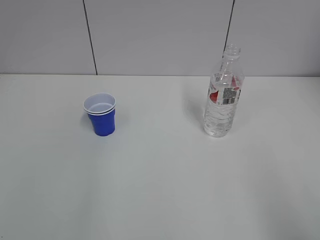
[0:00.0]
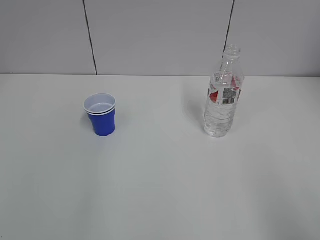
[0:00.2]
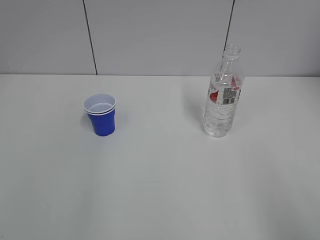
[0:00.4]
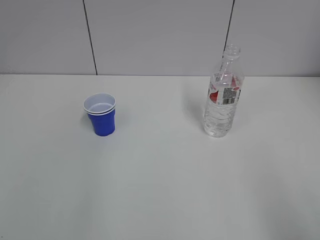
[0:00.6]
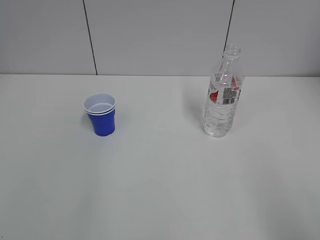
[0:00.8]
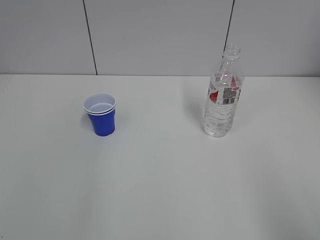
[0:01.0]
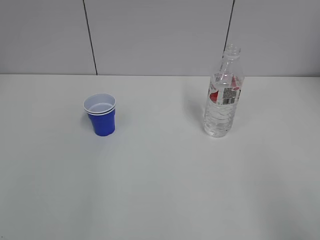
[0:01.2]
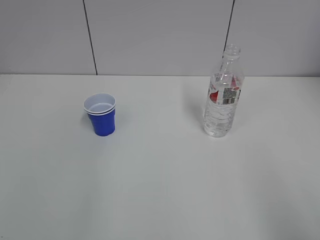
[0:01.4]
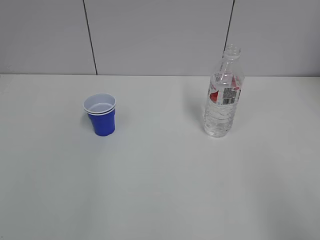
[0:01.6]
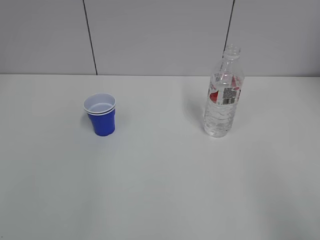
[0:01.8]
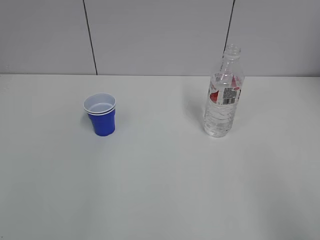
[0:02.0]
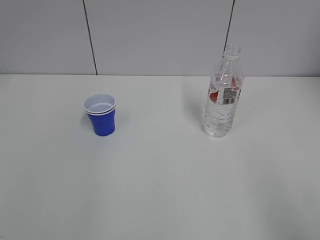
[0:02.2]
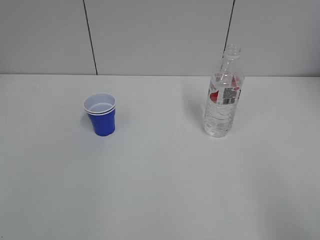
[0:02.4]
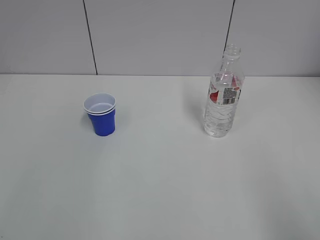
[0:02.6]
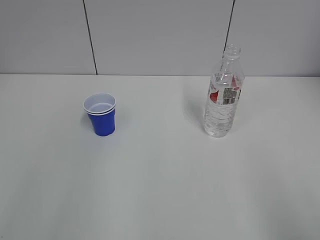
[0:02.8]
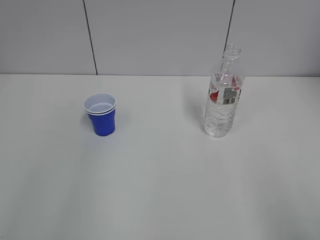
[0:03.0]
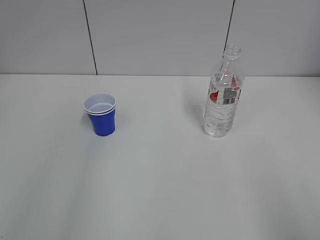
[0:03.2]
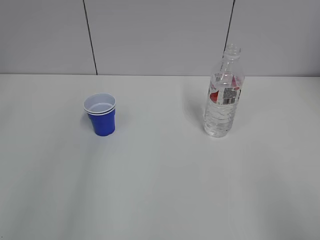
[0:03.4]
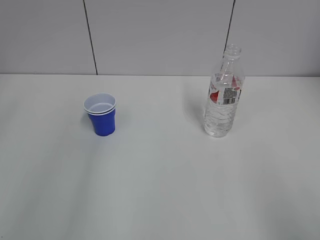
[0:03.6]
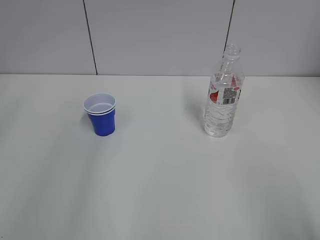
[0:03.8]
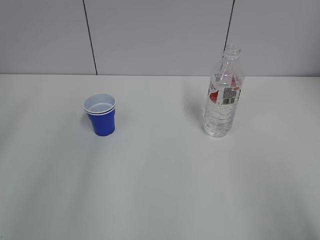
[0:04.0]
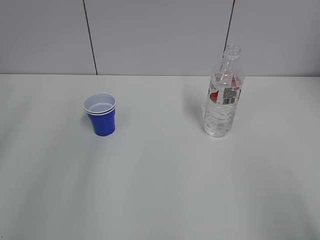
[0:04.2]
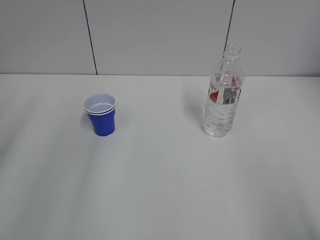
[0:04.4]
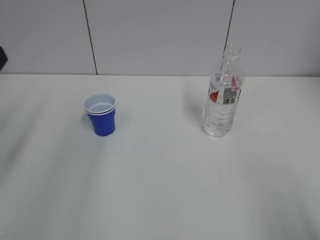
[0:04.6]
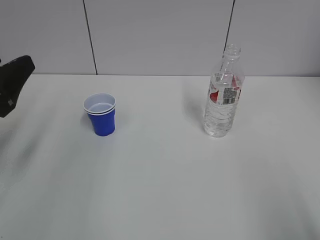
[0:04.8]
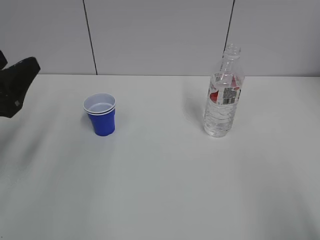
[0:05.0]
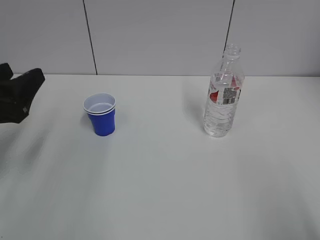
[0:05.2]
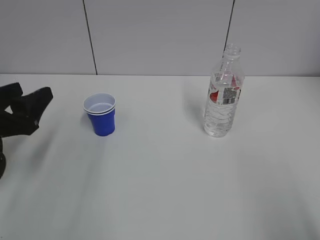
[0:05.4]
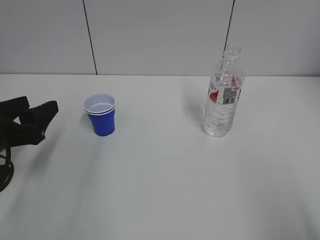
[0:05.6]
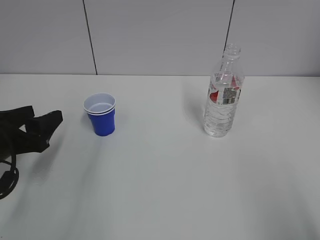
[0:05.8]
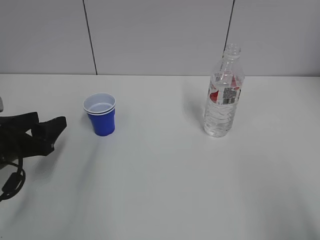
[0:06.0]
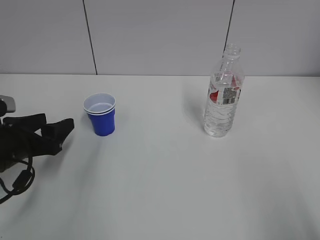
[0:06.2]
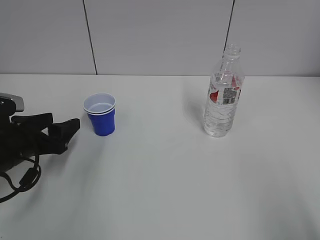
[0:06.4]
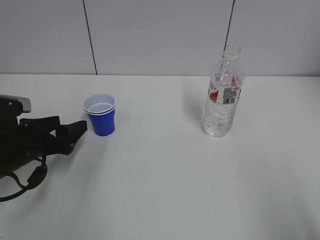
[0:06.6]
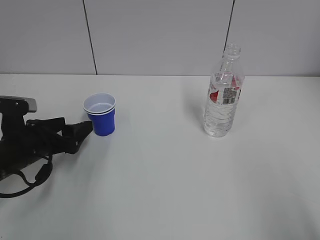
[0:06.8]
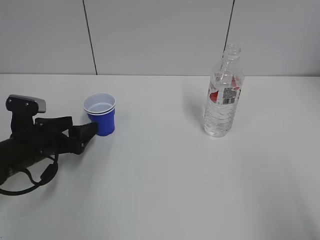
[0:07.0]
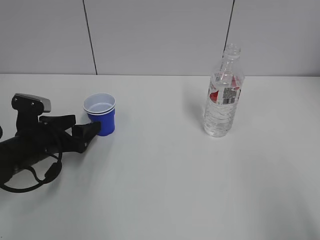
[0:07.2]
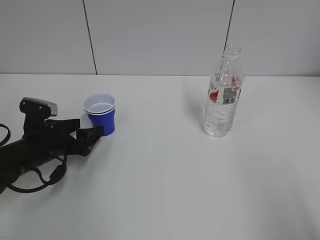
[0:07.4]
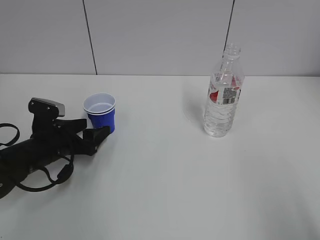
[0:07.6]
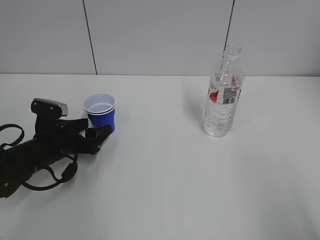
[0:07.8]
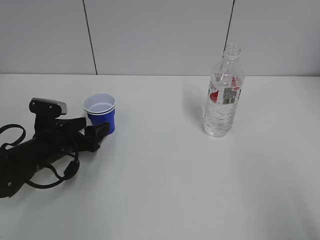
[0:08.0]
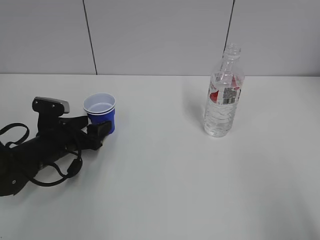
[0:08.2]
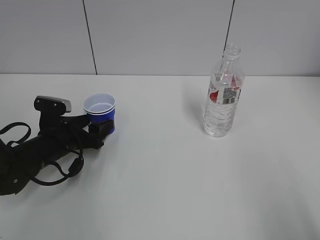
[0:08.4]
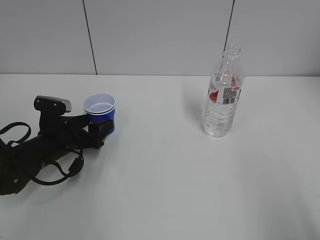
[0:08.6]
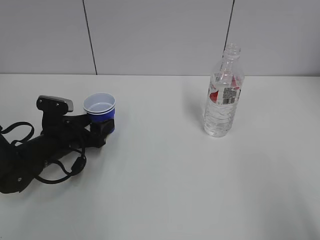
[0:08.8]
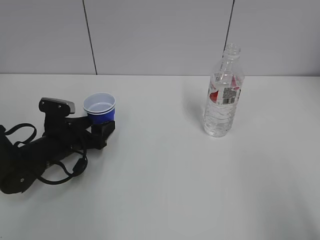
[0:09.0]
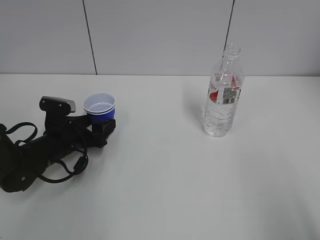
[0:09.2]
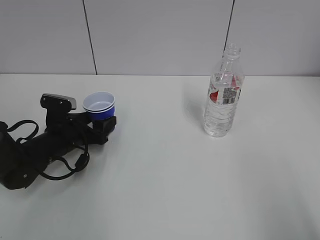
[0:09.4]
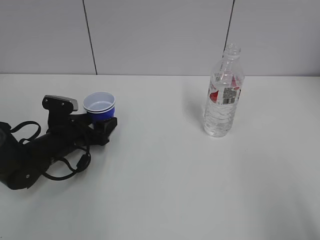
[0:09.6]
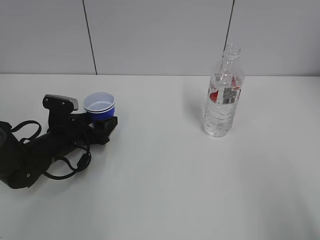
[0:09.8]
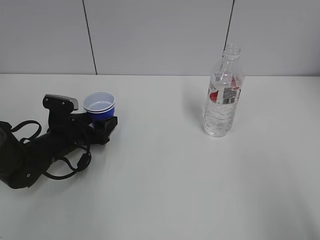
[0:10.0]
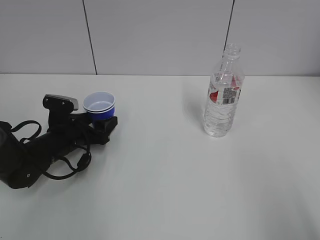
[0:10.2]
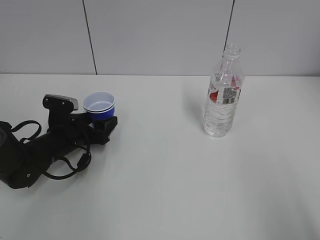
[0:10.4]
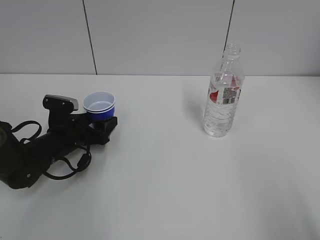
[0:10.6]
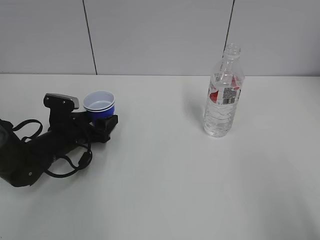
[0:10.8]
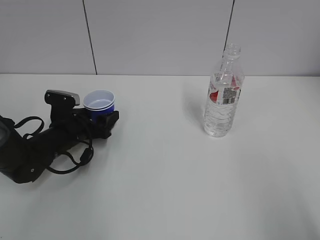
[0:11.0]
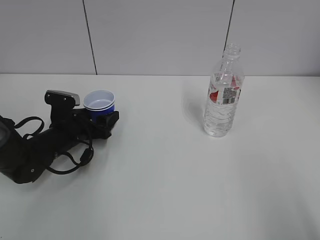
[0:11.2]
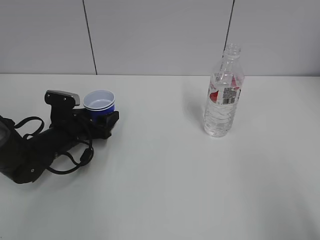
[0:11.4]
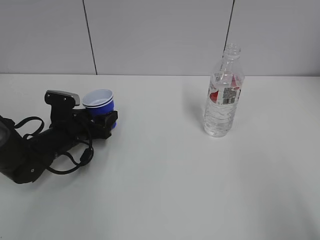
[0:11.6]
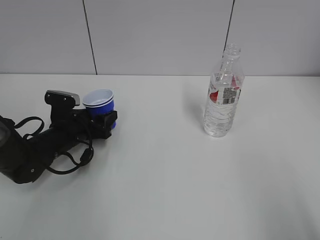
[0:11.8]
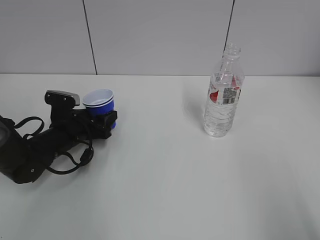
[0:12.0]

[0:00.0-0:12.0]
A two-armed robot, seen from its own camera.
Step, 0:00.0 to 0:11.4: Grab the paper cup with the left hand.
0:04.4 to 0:06.0: The left gripper travels downward and forward by some 15 cm.
0:06.0 to 0:07.6: The left gripper goes approximately 10 cm forward and downward.
0:07.6 to 0:09.0: The grippers make only small movements.
0:09.0 to 0:10.4: Both grippers stay about where they are.
0:10.4 to 0:12.0: Both grippers stay about where they are.

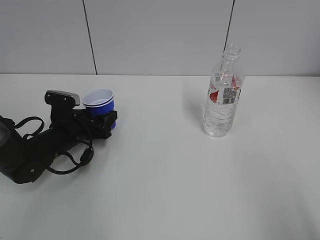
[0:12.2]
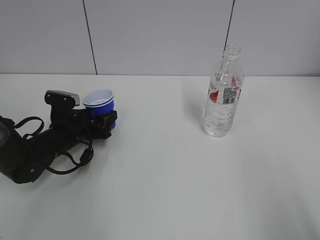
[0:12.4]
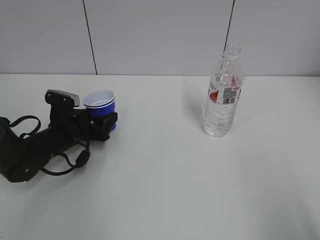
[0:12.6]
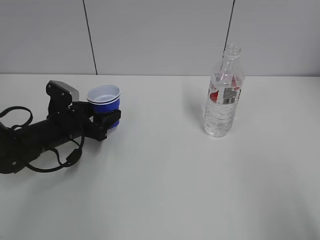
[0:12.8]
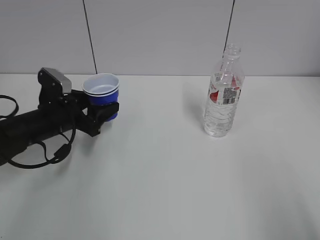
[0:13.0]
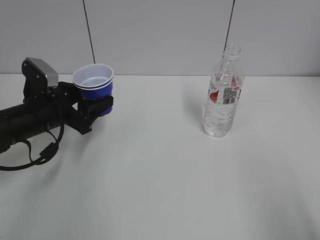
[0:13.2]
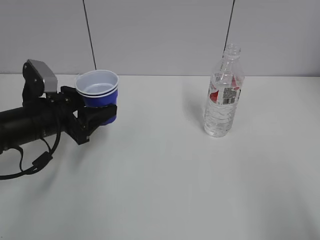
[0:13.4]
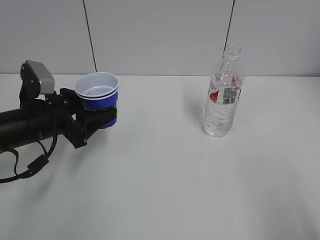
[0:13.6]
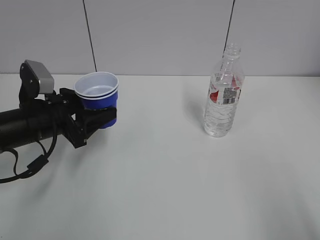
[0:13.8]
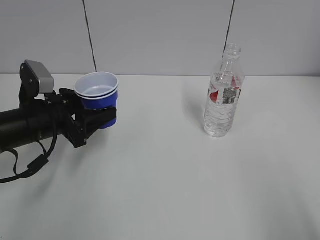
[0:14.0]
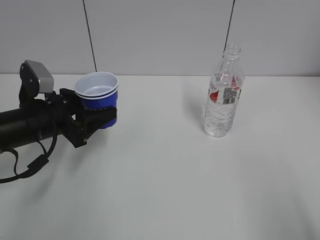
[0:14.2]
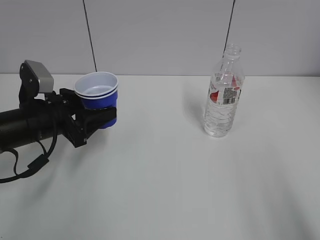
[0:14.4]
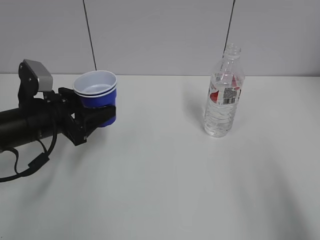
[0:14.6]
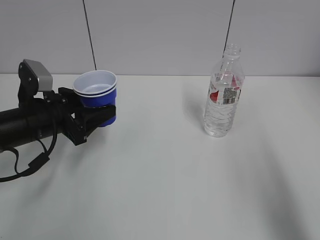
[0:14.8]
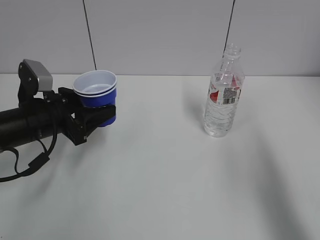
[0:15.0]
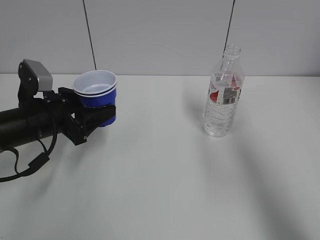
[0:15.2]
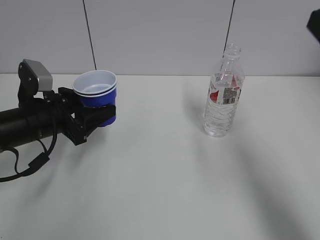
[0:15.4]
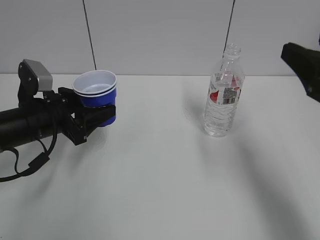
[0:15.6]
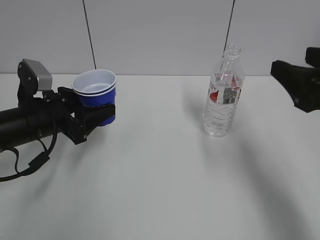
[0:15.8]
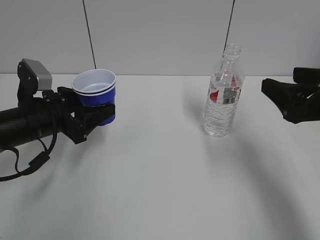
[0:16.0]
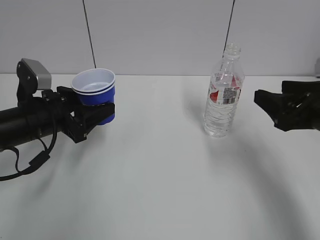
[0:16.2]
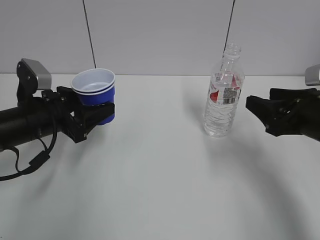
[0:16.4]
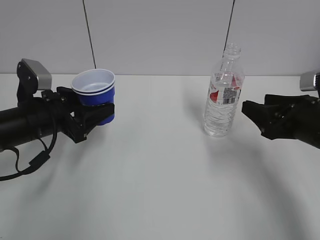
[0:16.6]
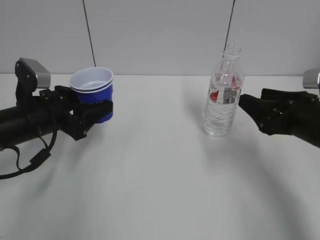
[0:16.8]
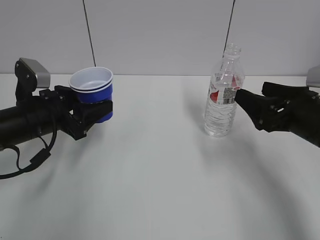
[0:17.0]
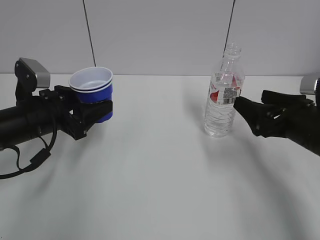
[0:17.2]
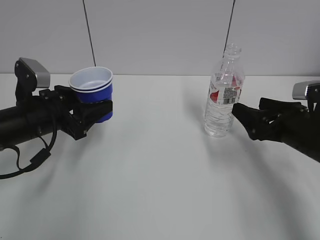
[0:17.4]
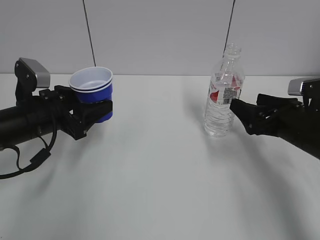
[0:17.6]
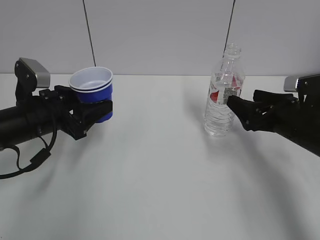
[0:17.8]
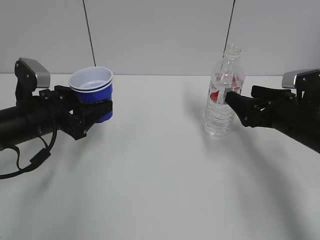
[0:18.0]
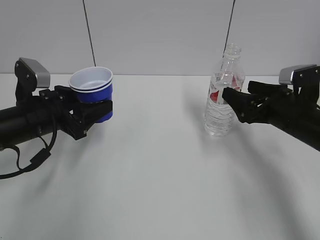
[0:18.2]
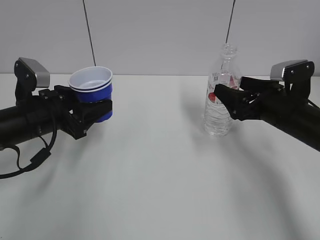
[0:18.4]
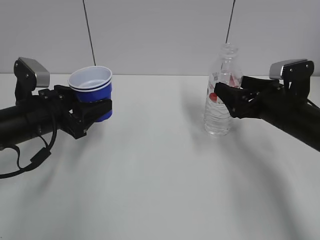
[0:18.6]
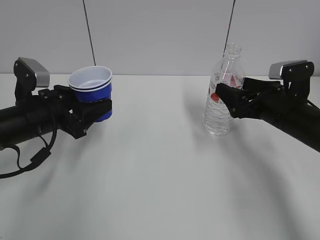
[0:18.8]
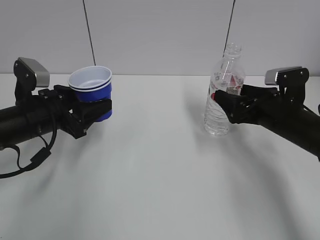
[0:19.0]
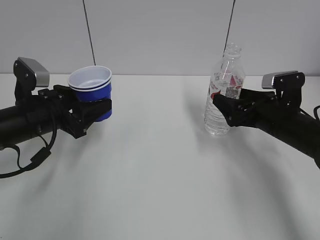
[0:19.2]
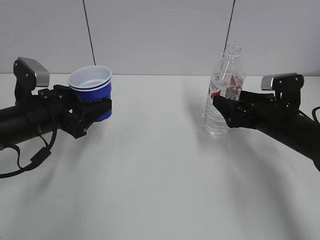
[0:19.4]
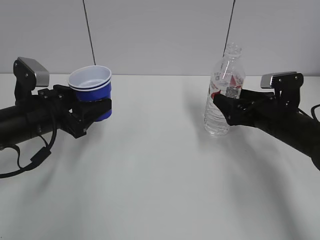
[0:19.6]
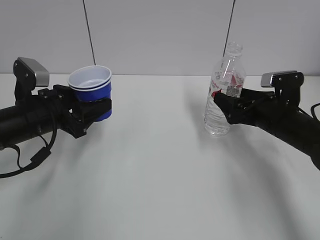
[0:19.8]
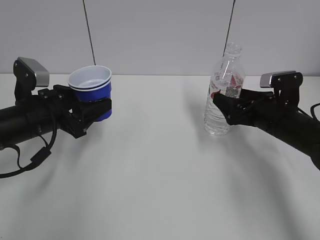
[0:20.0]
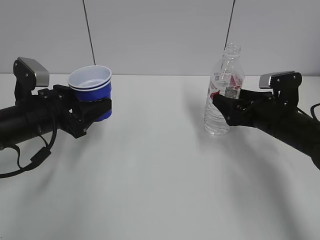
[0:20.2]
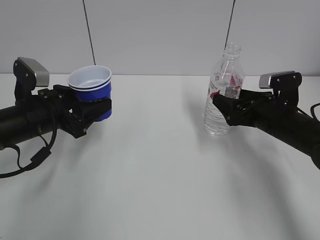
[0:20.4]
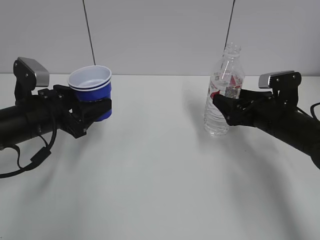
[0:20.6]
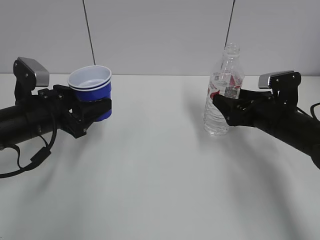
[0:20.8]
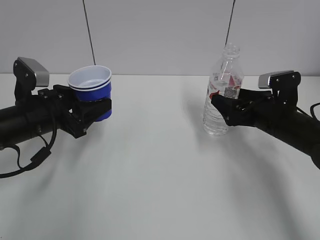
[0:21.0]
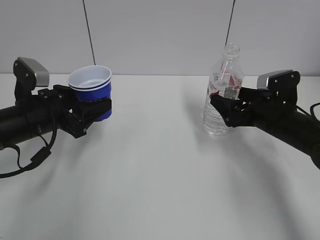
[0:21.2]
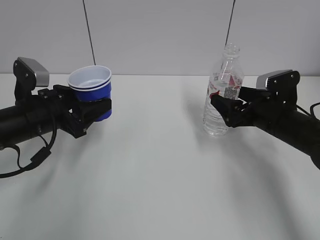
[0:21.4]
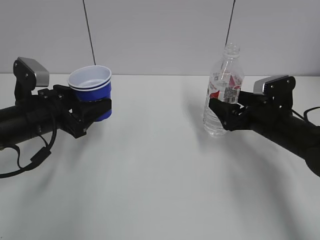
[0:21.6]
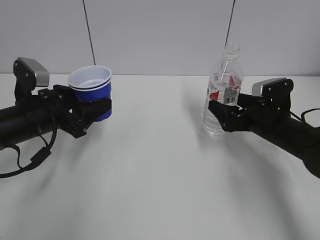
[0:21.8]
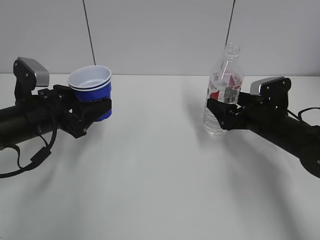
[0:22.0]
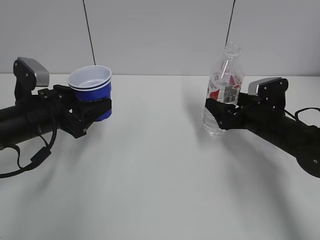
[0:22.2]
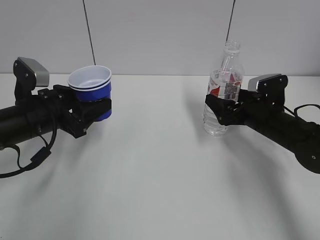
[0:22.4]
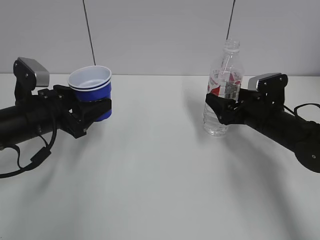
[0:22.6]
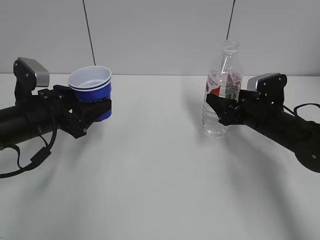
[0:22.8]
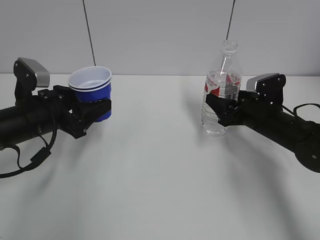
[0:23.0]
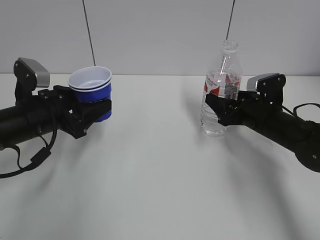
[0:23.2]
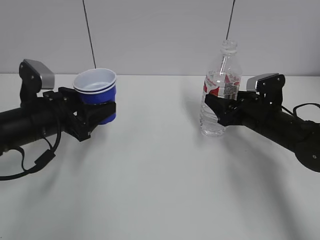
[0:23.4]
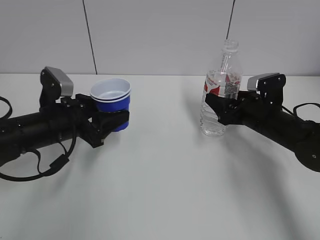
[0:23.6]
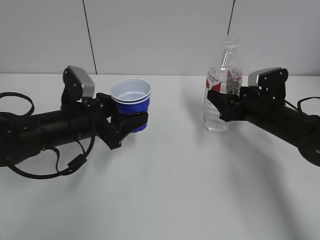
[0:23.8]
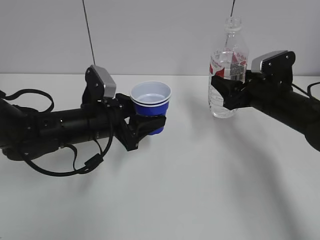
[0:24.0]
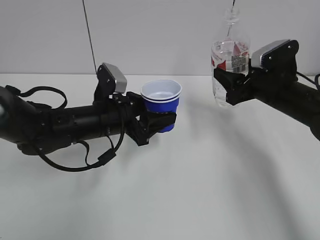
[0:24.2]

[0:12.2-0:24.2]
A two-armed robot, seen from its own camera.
Step, 0:12.2 to 0:22.8: Grab the water bottle with the right hand.
0:12.2 to 0:13.8: The left gripper shifts approximately 10 cm upward and backward.
0:13.8 to 0:15.2: The right gripper travels forward by about 15 cm.
0:15.2 to 0:16.6: The right gripper heads downward and forward, covering approximately 20 cm, and closes.
0:16.6 to 0:18.2: The right gripper goes approximately 5 cm forward, and opens.
0:18.2 to 0:21.2: The grippers stay close to where they were, moving slightly.
0:21.2 to 0:22.6: There are only small adjustments of the grippers.
0:22.6 to 0:24.2: The left gripper is displaced to the right by approximately 10 cm; the right gripper travels upward by approximately 5 cm, and closes up.
